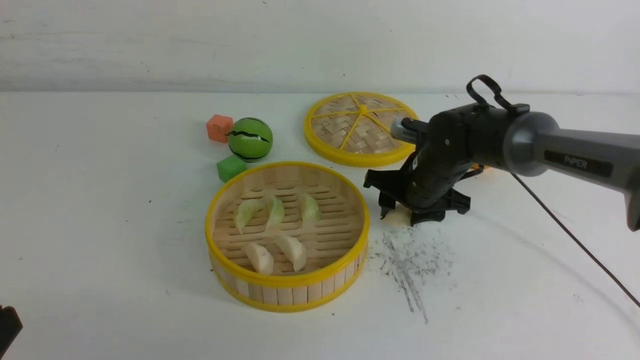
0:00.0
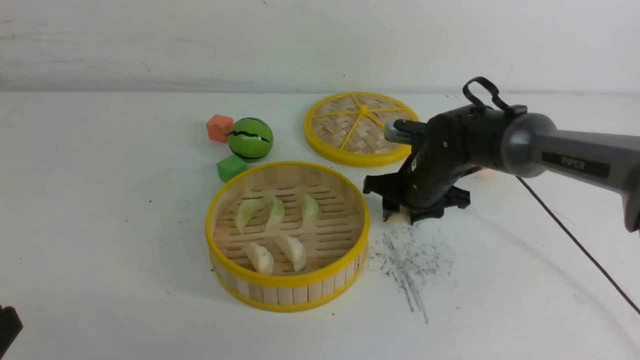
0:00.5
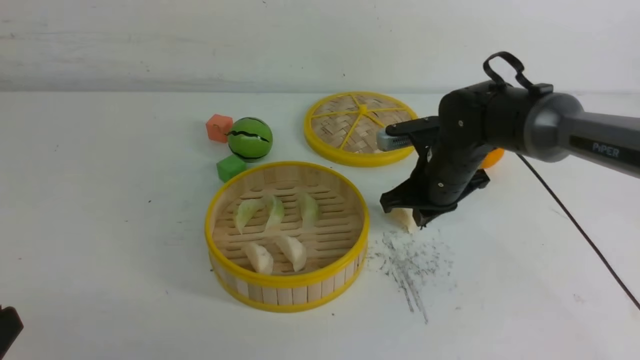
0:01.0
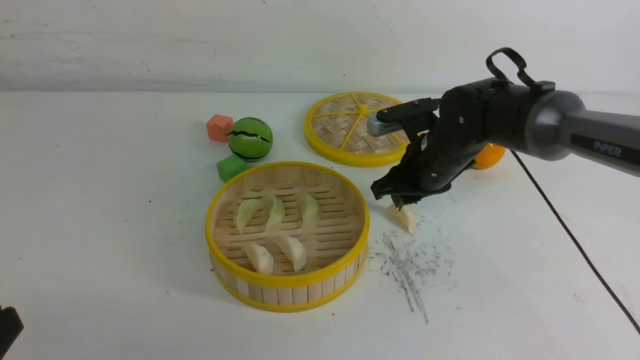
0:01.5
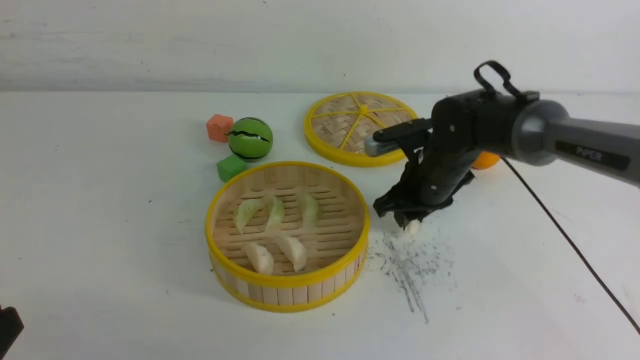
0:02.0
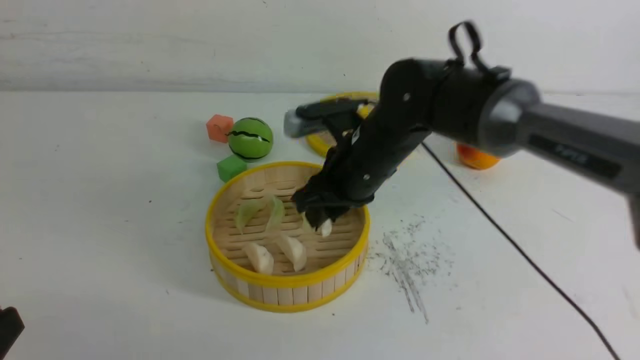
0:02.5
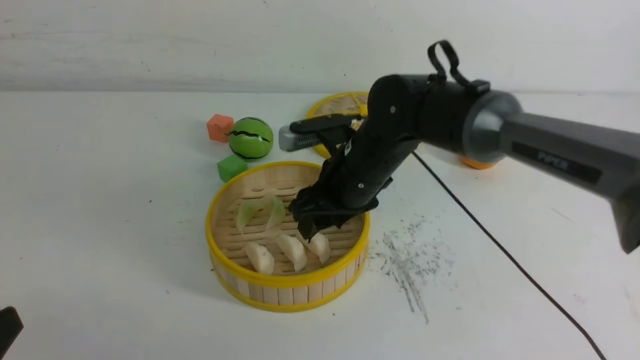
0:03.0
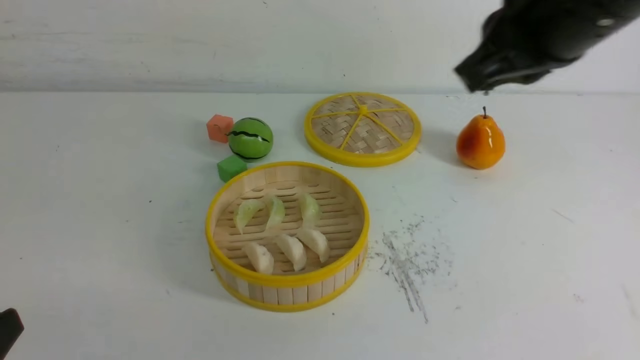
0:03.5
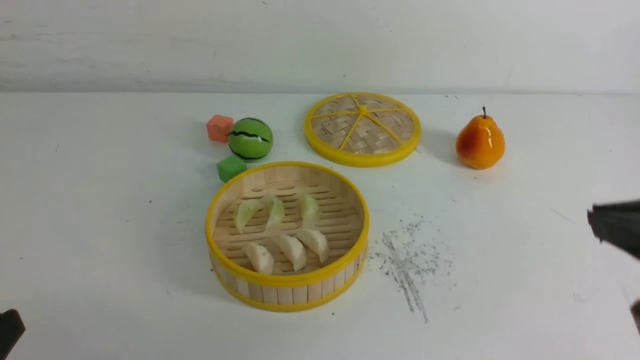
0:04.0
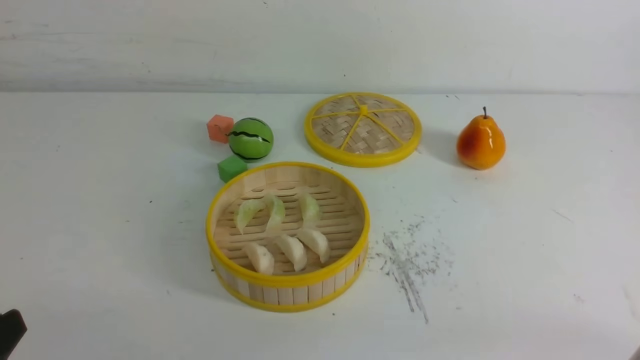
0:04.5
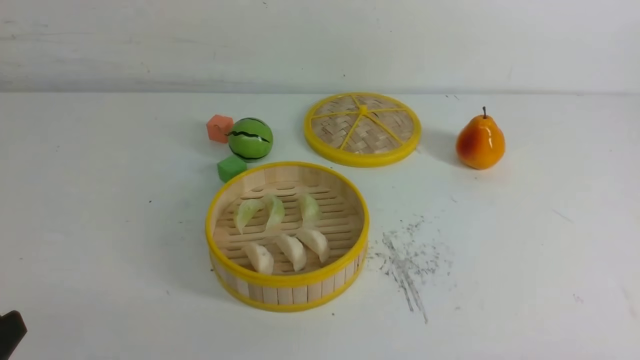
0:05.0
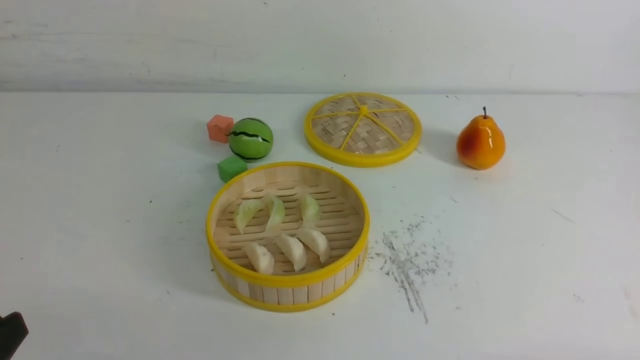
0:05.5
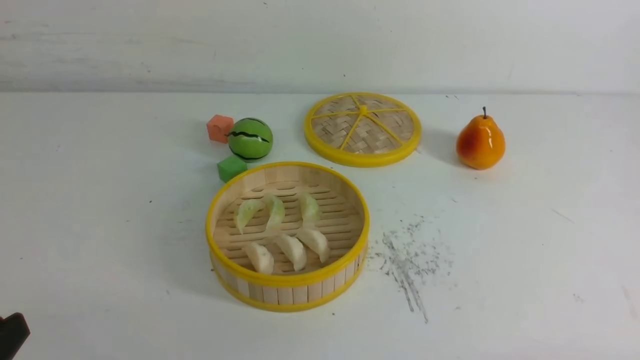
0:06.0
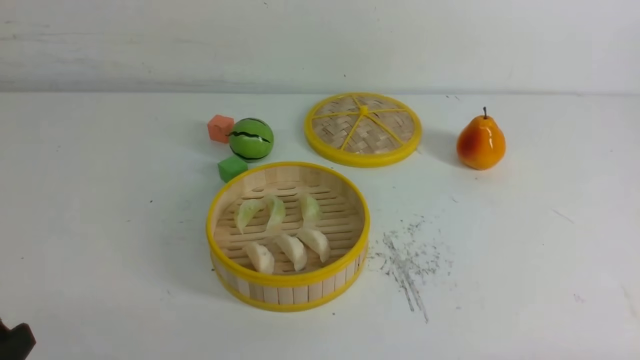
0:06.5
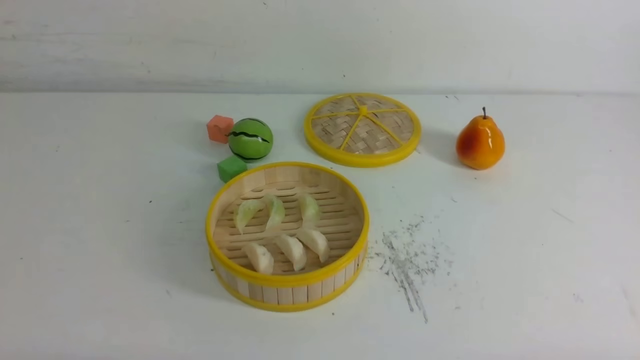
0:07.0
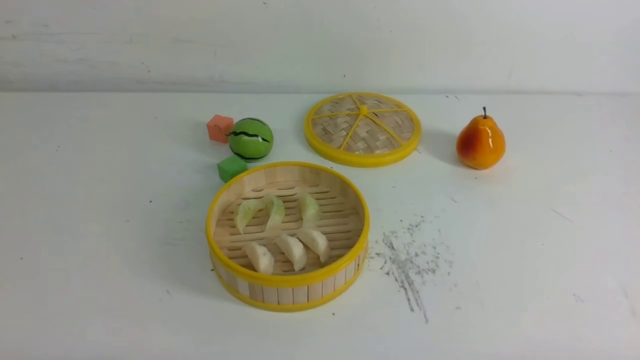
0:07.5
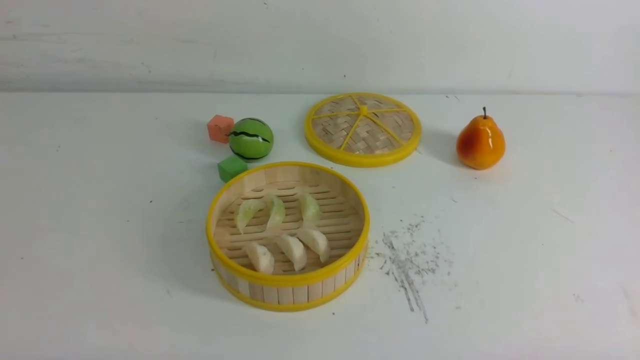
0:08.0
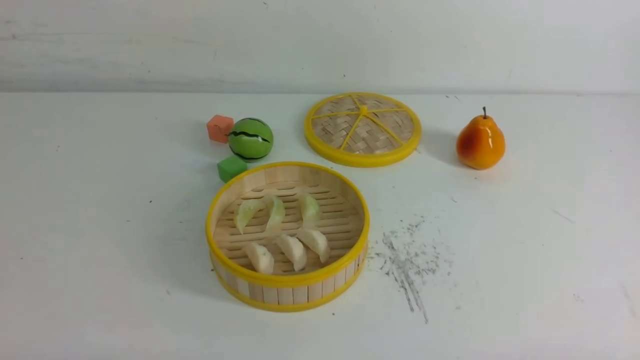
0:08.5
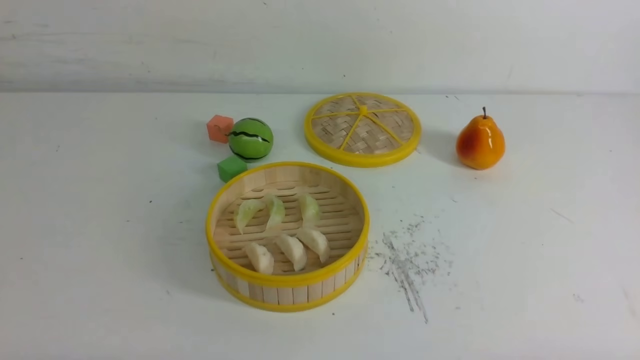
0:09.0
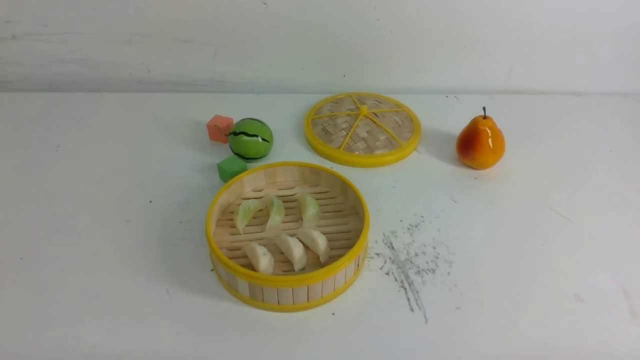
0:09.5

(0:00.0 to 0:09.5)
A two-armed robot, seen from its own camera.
Task of the whole recording: put the dumplings into the steamer on the white table.
Step, 0:00.0 - 0:02.0: use the right arm to grab a dumpling.
Step, 0:02.5 - 0:03.0: use the right arm to put the dumpling into the steamer.
0:00.0 - 0:02.0: The right gripper changes place by roughly 5 cm, and closes and opens again.
0:02.0 - 0:04.0: The right gripper travels backward and upward by some 35 cm, and closes its fingers.
0:04.0 - 0:05.5: The right gripper is displaced downward and backward by approximately 20 cm.
0:07.5 - 0:09.5: Both grippers stay about where they are.
